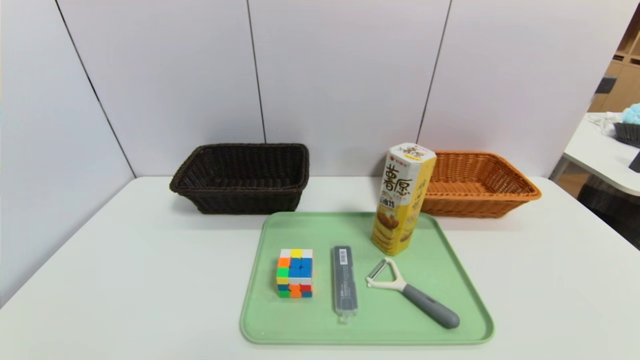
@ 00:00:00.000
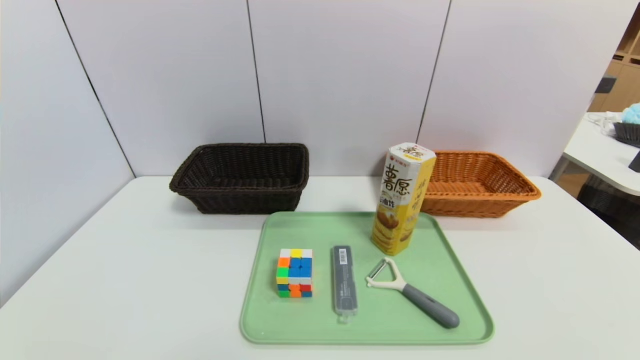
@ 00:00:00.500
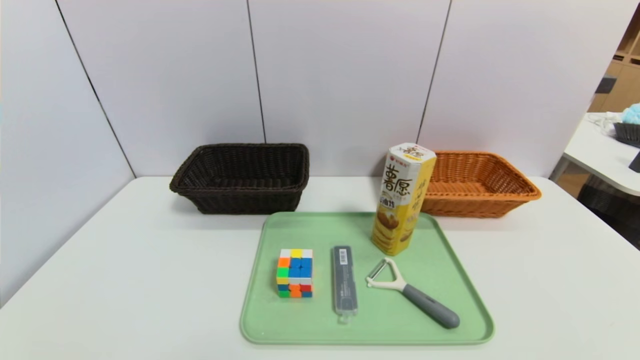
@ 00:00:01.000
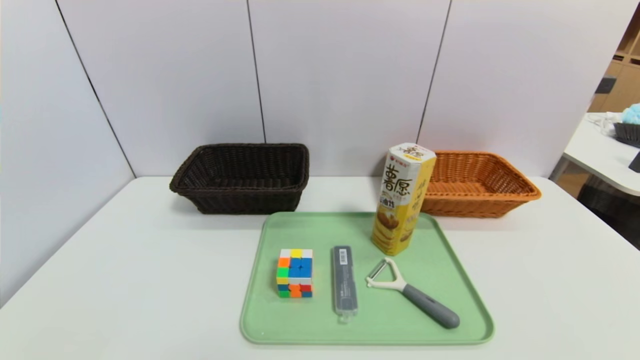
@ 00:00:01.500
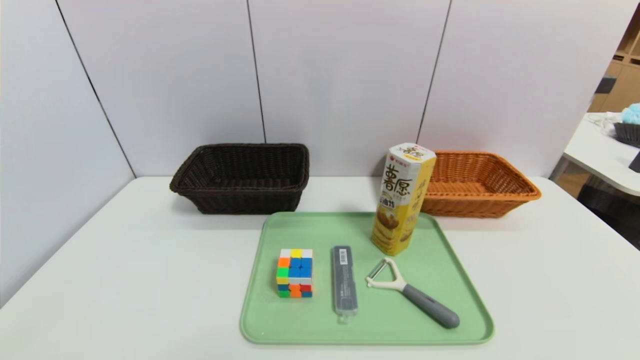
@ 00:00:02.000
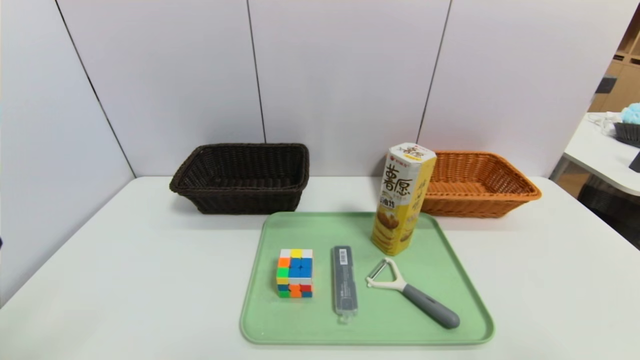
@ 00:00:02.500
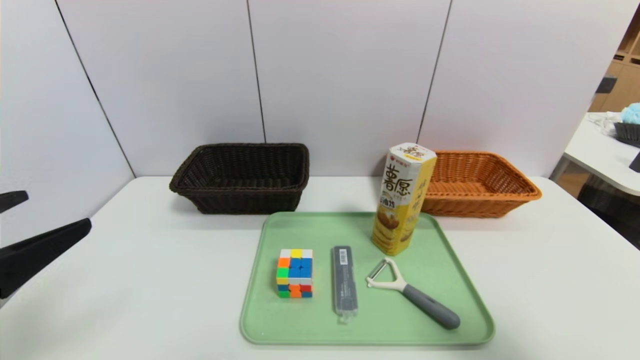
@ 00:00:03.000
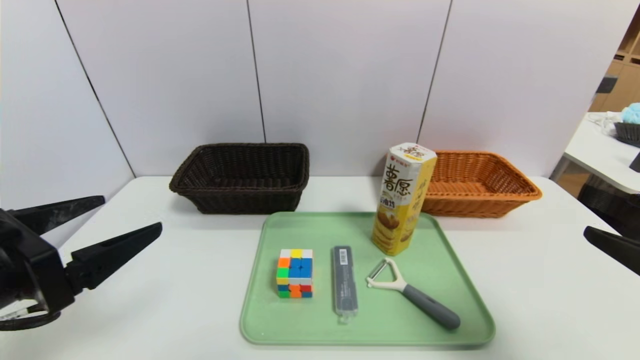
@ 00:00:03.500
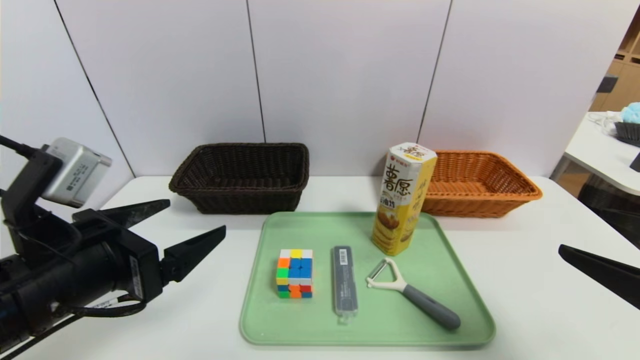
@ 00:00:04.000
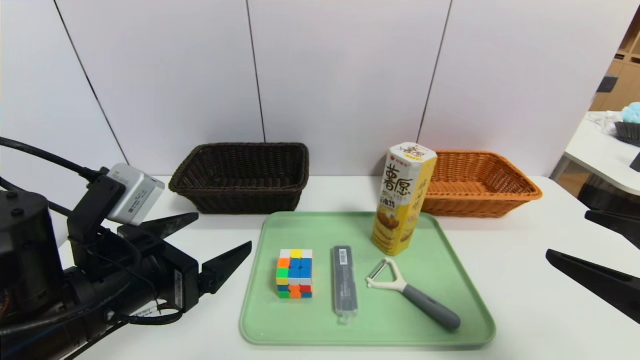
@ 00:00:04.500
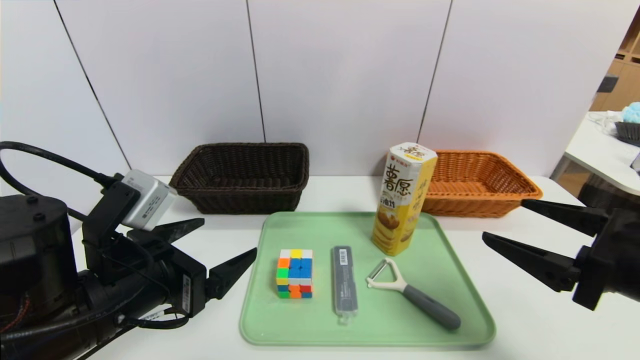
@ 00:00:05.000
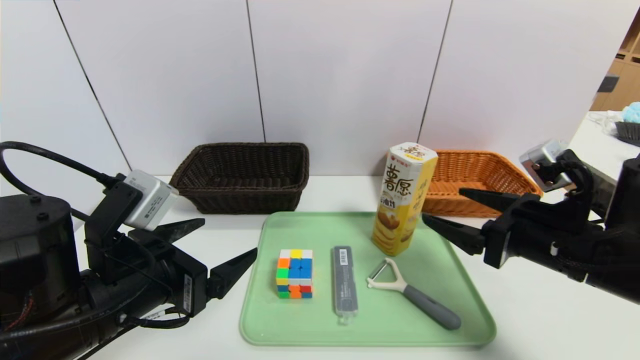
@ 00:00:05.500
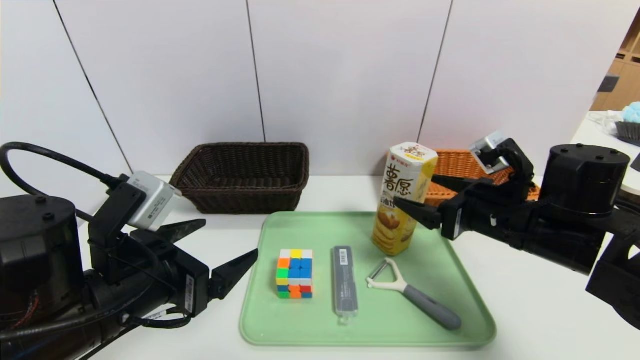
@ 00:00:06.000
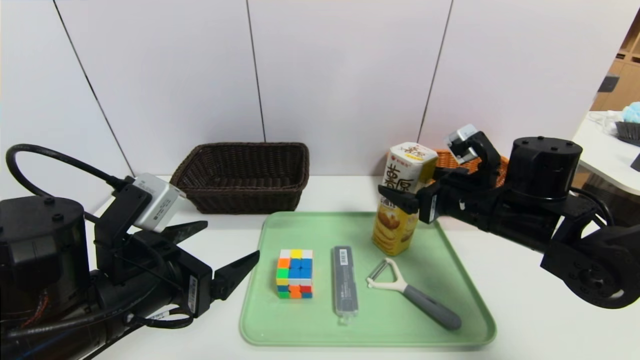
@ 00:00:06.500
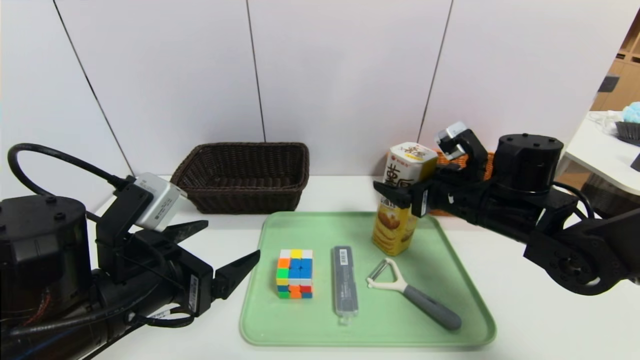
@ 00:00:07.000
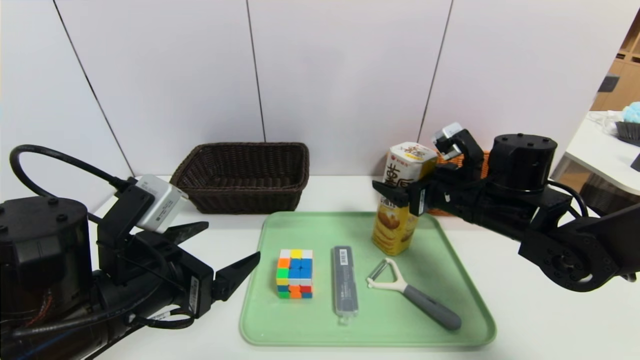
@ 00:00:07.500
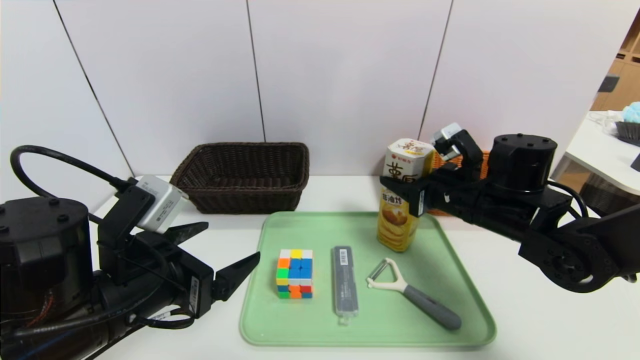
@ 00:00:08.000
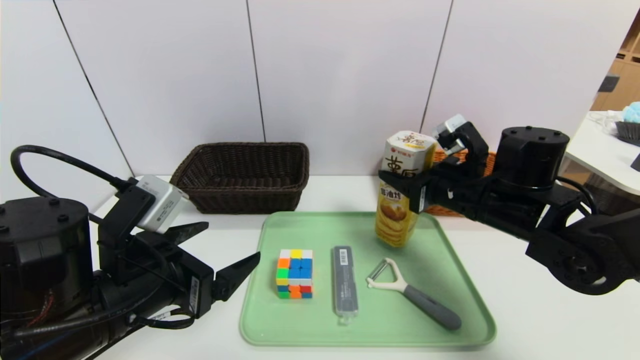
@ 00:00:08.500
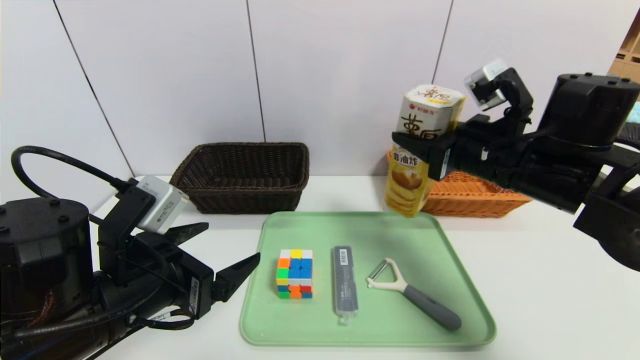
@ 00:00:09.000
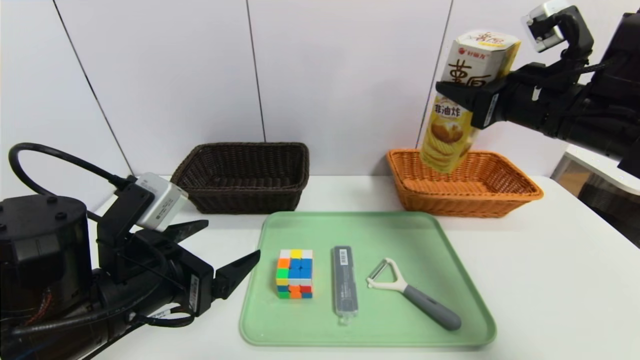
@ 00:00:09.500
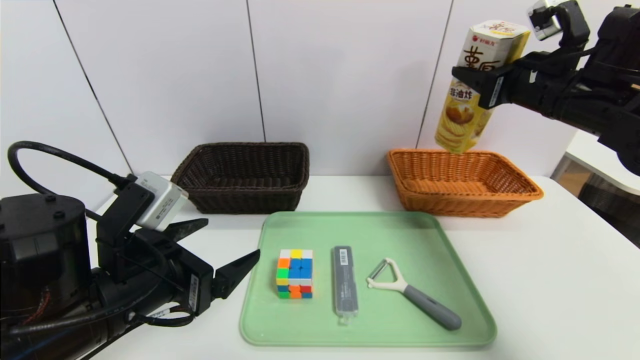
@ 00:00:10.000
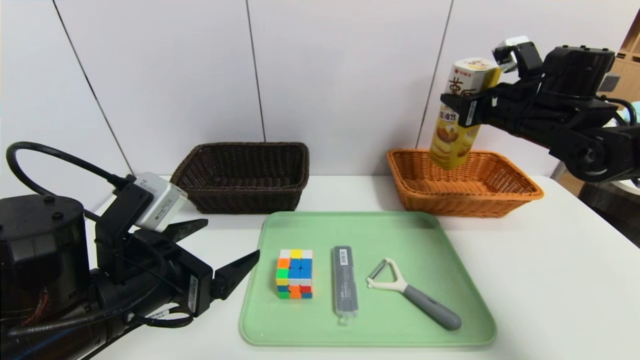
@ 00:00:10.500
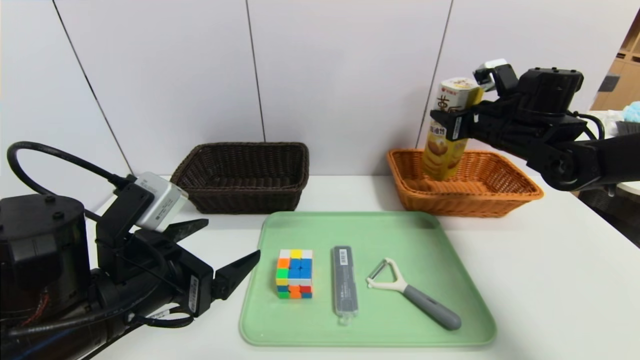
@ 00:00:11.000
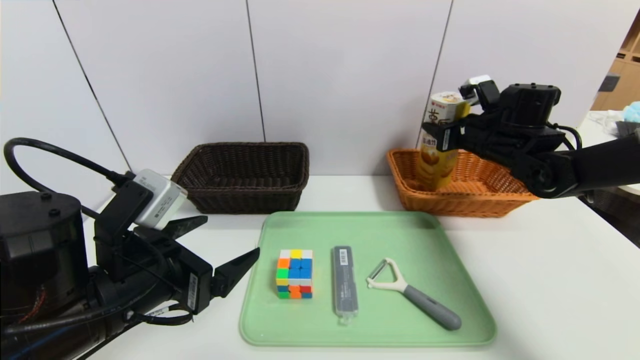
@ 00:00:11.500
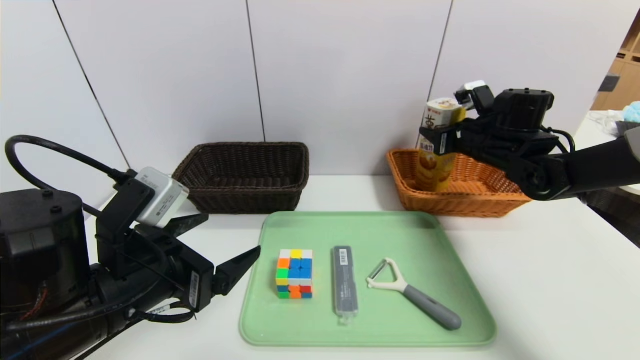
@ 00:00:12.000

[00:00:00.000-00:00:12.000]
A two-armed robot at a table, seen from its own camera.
Task of the whole recording: place the food in the right basket with the right gripper, and place the non food items in the left basket with the left gripper.
00:00:02.000 to 00:00:04.000: The right gripper is displaced forward and upward by roughly 15 cm. Meanwhile the left gripper moves forward and to the right, roughly 20 cm.
00:00:04.000 to 00:00:06.000: The right gripper moves forward and to the left, about 20 cm.
00:00:06.000 to 00:00:08.000: The right gripper travels forward by about 5 cm, and closes up.
00:00:08.000 to 00:00:10.000: The right gripper heads upward and to the right, covering some 15 cm.
00:00:10.000 to 00:00:12.000: The right gripper shifts roughly 15 cm downward and forward.

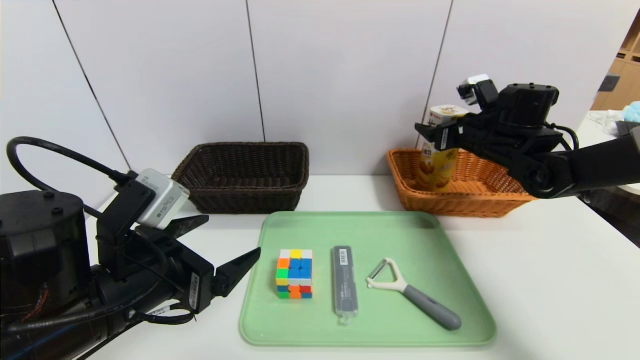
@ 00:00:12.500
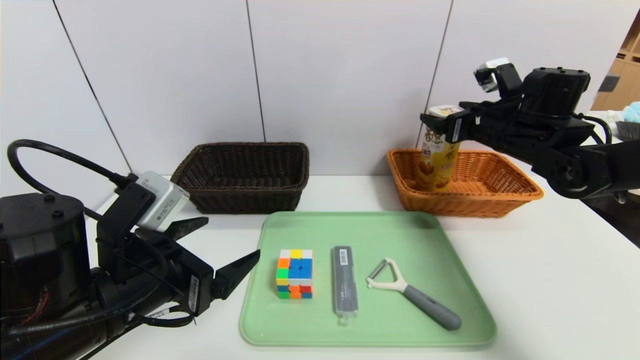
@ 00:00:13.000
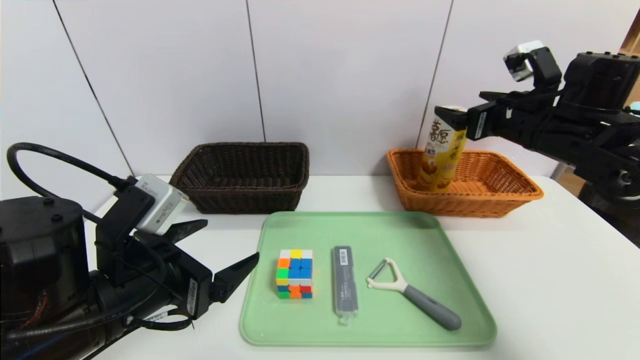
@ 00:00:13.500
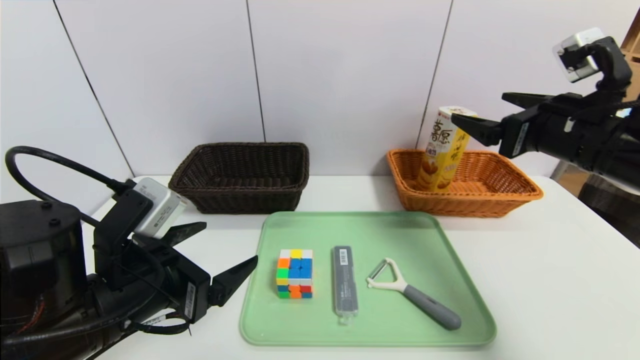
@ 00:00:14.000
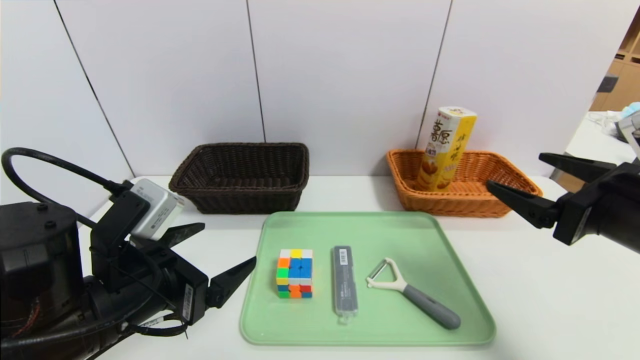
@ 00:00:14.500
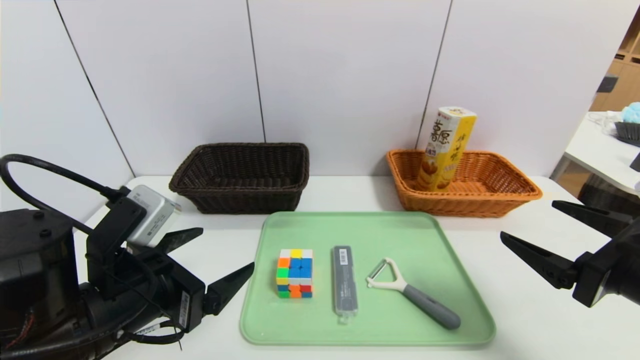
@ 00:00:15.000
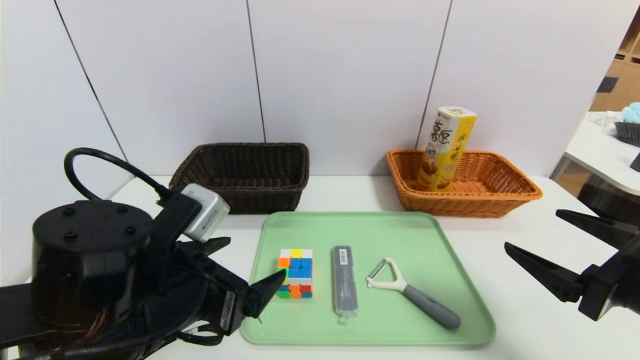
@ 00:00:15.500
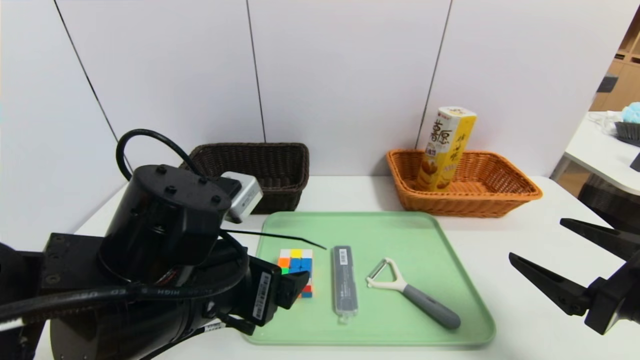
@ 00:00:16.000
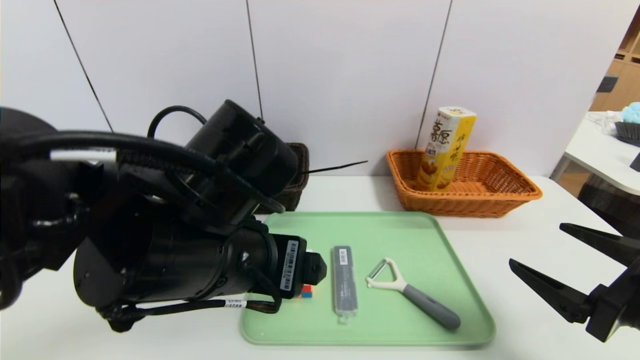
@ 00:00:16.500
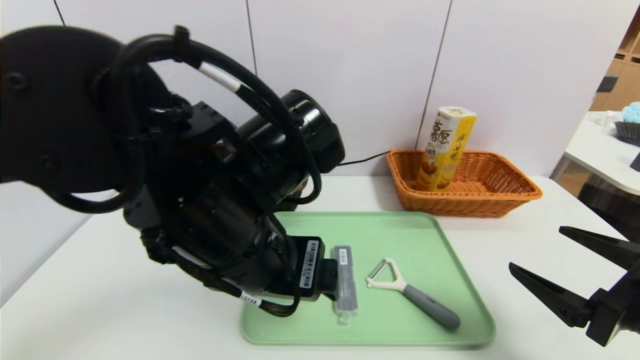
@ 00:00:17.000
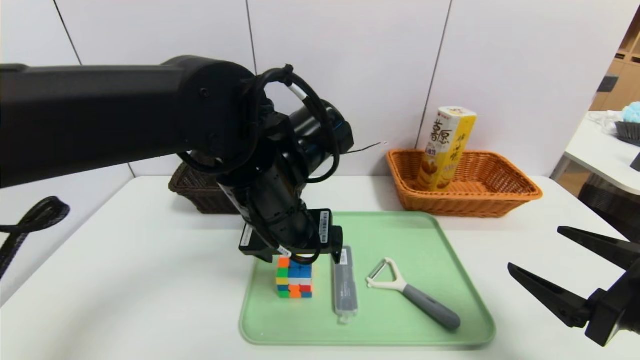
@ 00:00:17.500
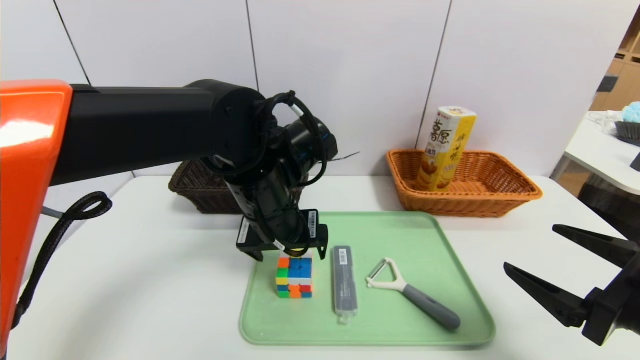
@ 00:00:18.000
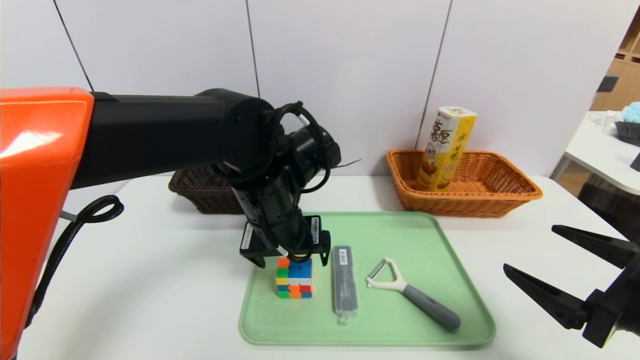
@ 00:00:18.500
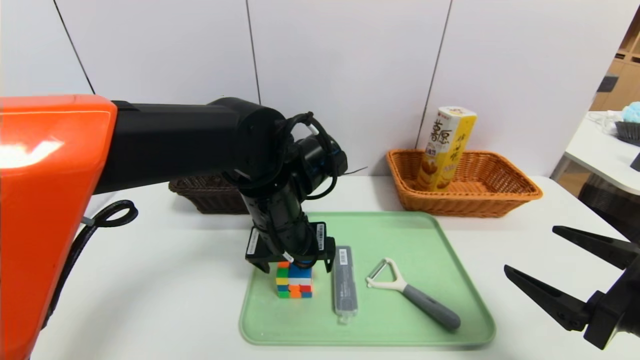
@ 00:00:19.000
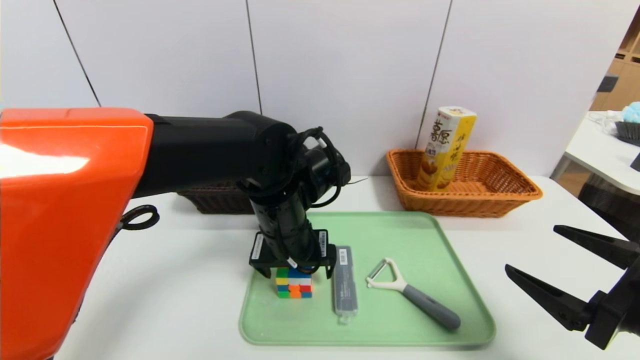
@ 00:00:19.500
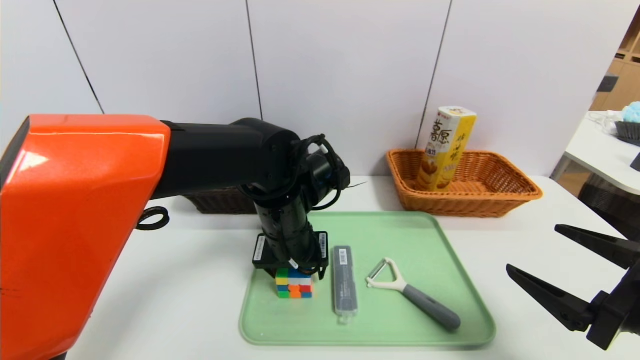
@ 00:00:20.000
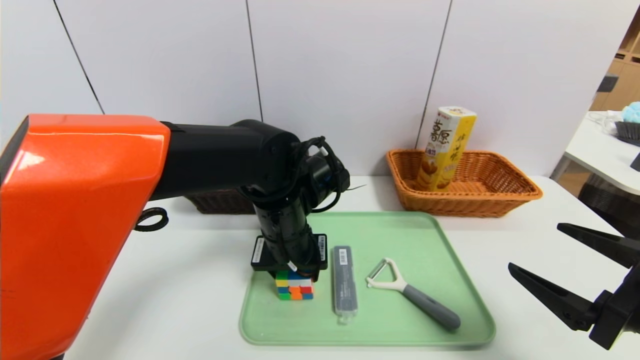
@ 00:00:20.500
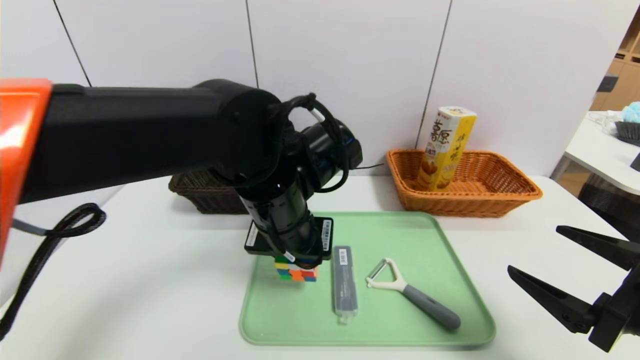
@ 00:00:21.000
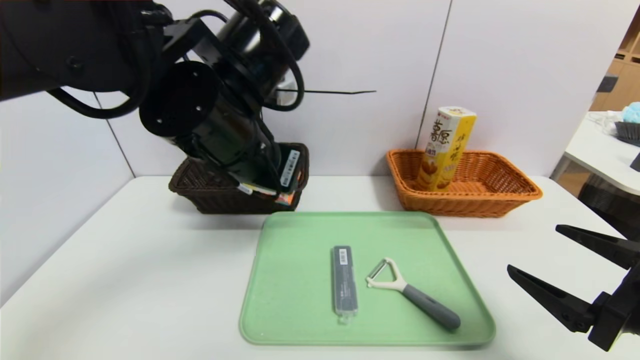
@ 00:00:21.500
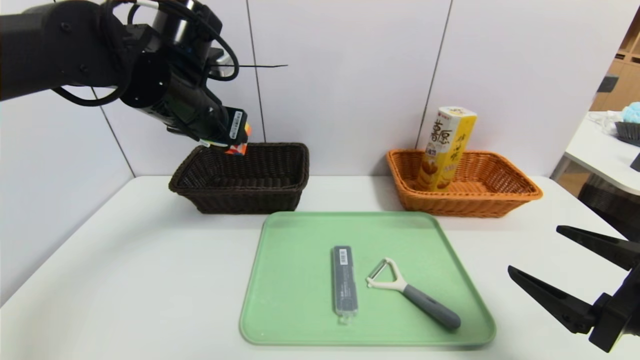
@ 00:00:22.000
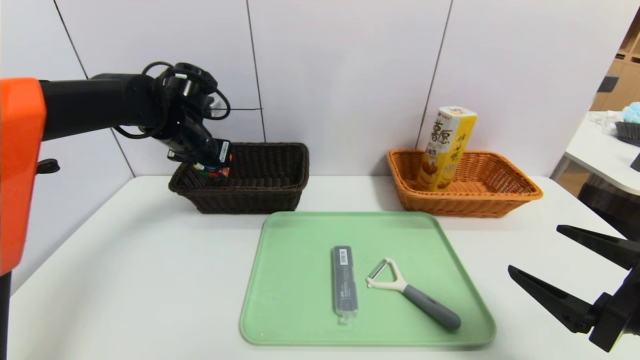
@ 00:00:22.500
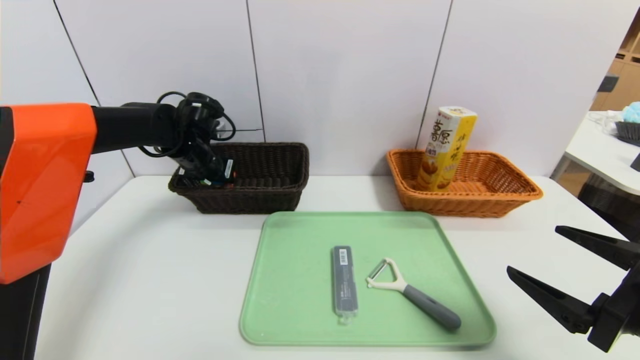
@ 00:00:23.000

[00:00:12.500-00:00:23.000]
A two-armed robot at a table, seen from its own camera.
Task of the whole recording: place the food in the right basket with the right gripper, and place the non food items in the left basket with the left gripper.
00:00:12.500 to 00:00:14.500: The right gripper heads backward, covering about 25 cm.
00:00:14.500 to 00:00:16.500: The left gripper heads to the right and upward, covering roughly 10 cm, while the right gripper heads backward and downward, covering about 10 cm.
00:00:16.500 to 00:00:19.000: The left gripper moves forward, some 10 cm.
00:00:19.000 to 00:00:21.000: The left gripper closes its fingers.
00:00:21.000 to 00:00:23.000: The left gripper moves forward and to the left, approximately 25 cm.
